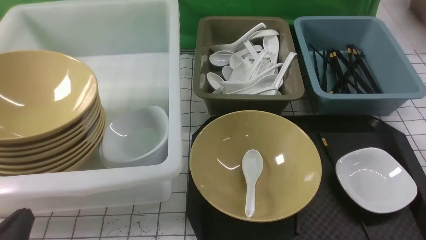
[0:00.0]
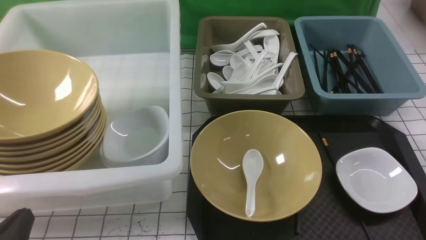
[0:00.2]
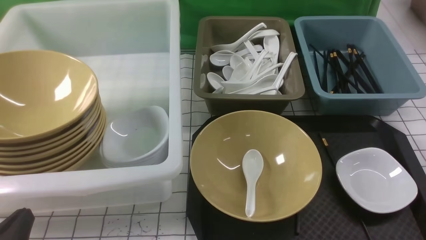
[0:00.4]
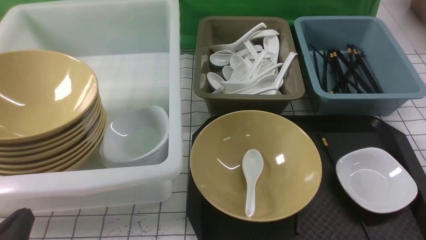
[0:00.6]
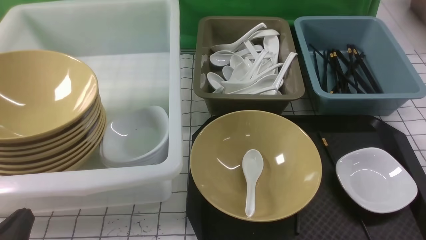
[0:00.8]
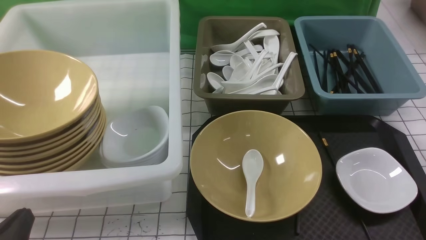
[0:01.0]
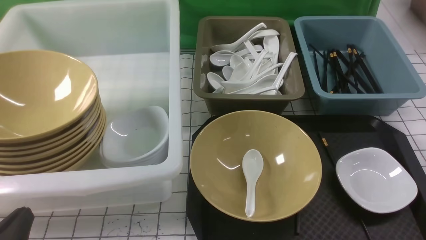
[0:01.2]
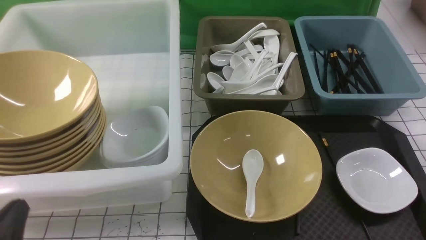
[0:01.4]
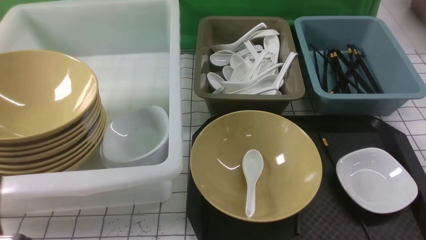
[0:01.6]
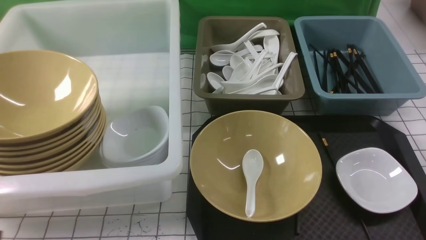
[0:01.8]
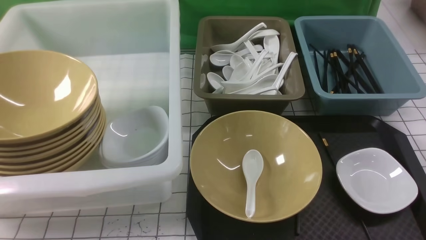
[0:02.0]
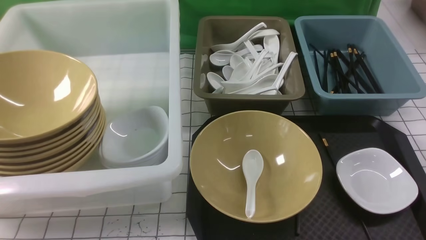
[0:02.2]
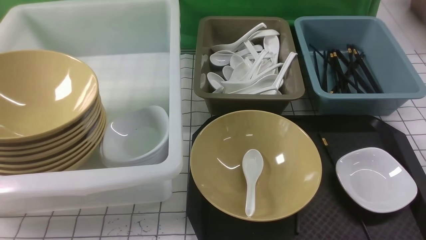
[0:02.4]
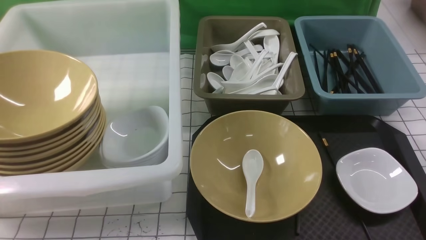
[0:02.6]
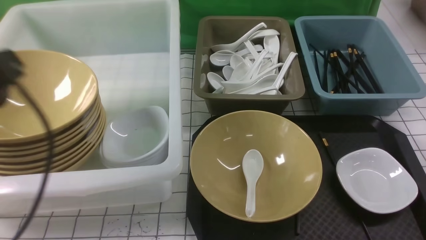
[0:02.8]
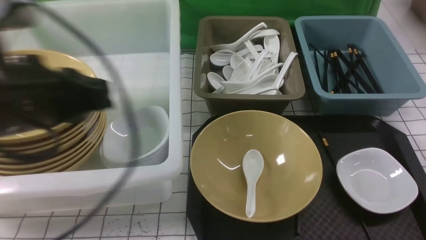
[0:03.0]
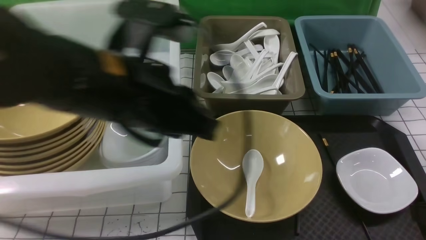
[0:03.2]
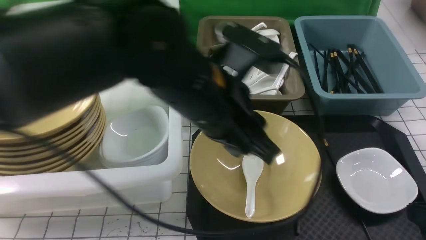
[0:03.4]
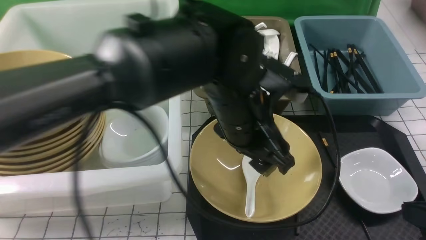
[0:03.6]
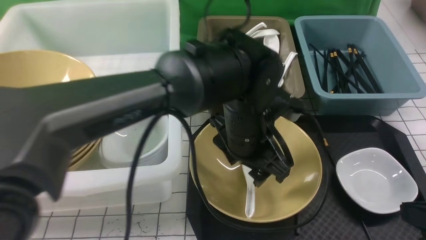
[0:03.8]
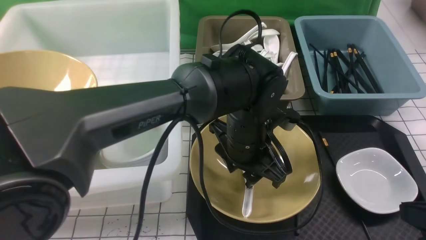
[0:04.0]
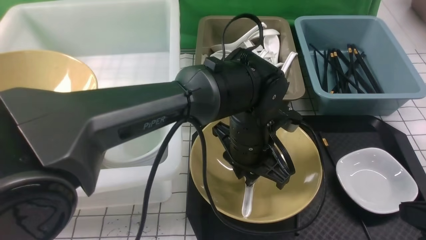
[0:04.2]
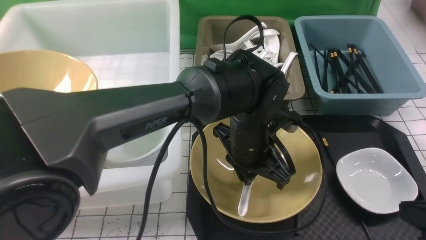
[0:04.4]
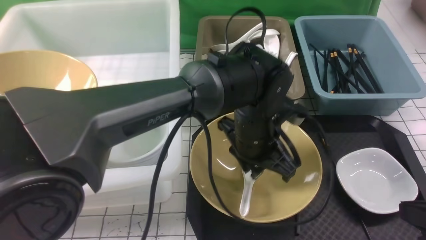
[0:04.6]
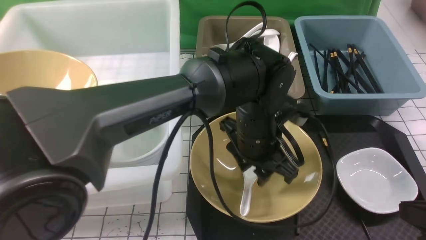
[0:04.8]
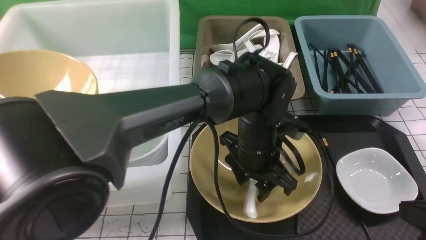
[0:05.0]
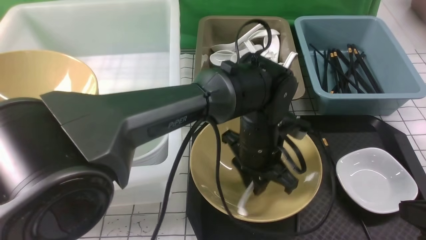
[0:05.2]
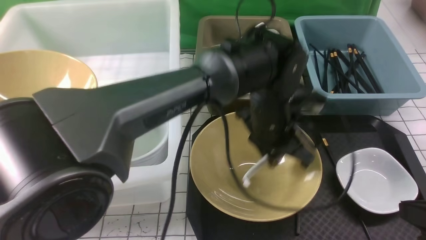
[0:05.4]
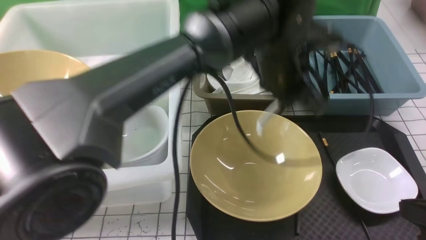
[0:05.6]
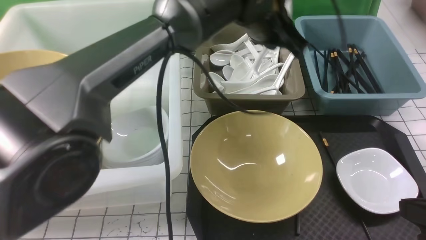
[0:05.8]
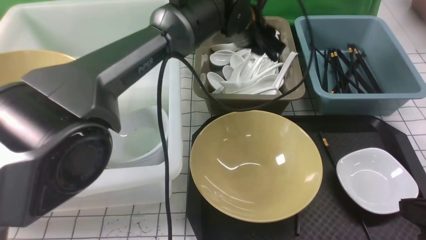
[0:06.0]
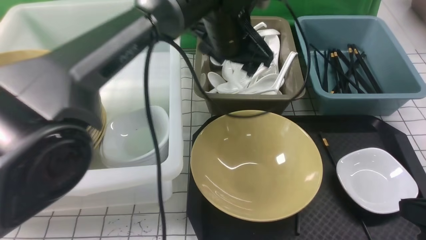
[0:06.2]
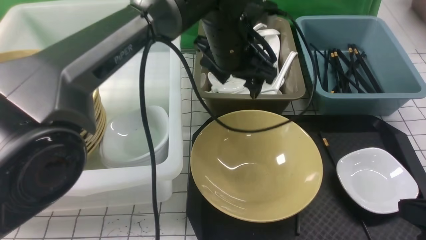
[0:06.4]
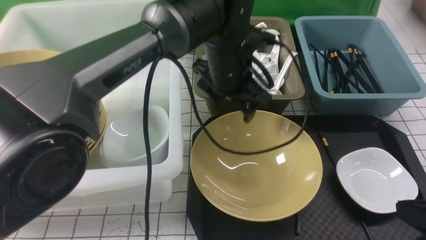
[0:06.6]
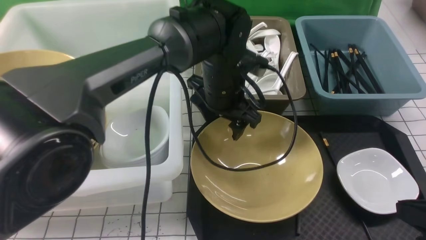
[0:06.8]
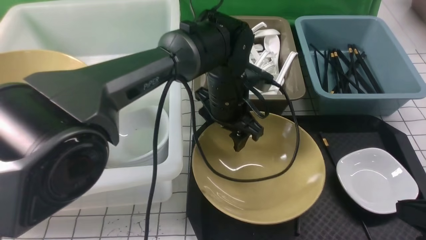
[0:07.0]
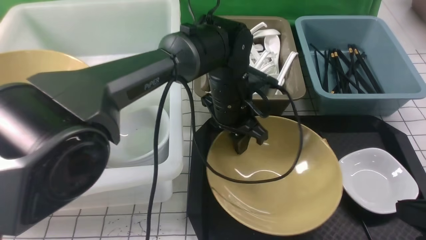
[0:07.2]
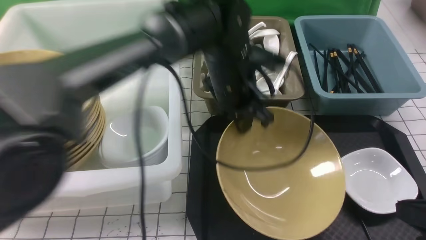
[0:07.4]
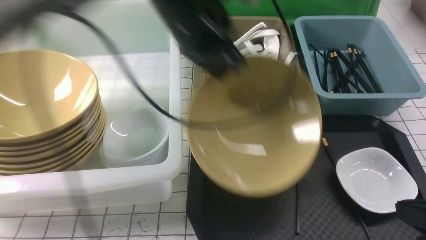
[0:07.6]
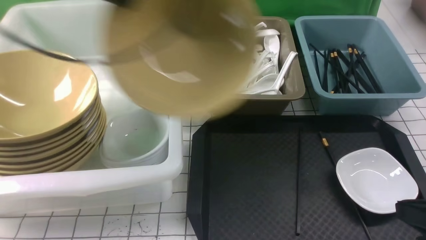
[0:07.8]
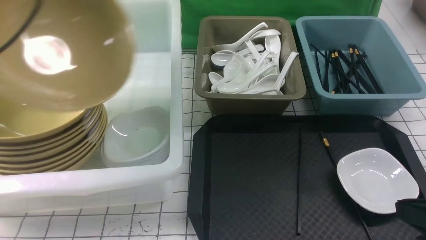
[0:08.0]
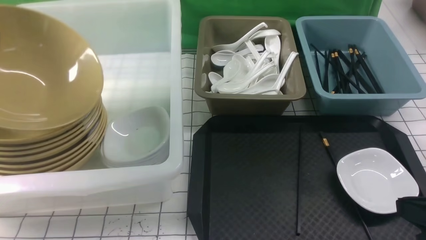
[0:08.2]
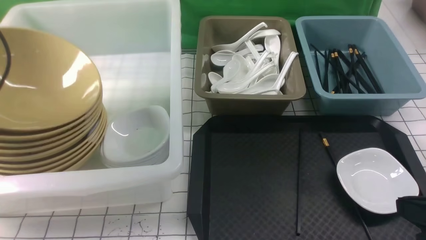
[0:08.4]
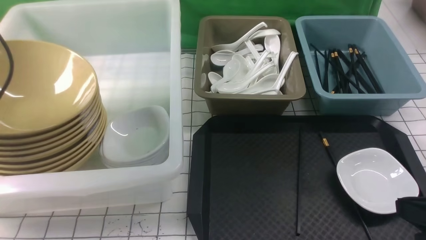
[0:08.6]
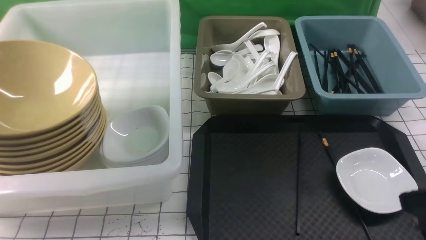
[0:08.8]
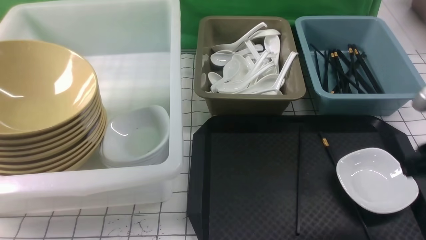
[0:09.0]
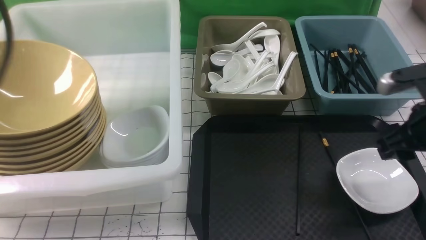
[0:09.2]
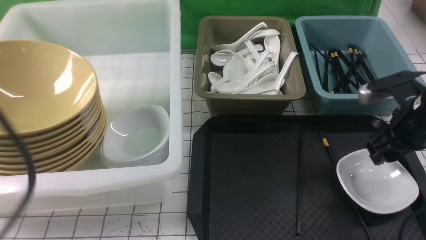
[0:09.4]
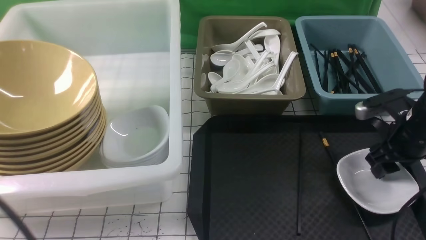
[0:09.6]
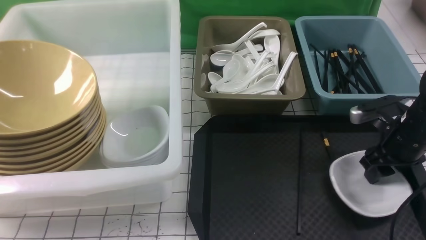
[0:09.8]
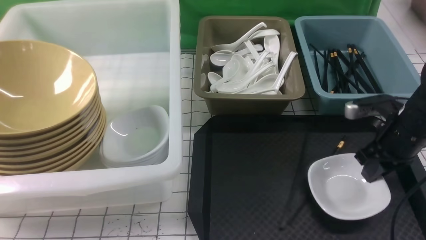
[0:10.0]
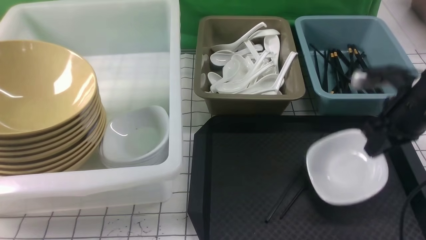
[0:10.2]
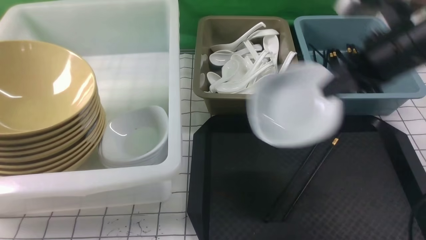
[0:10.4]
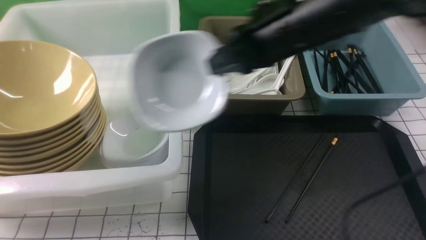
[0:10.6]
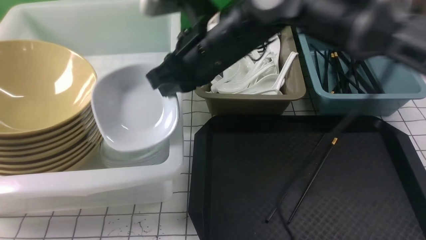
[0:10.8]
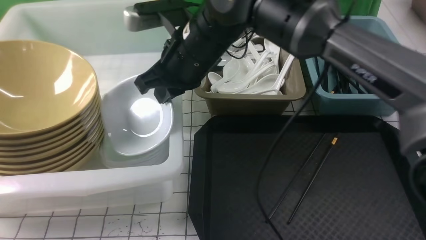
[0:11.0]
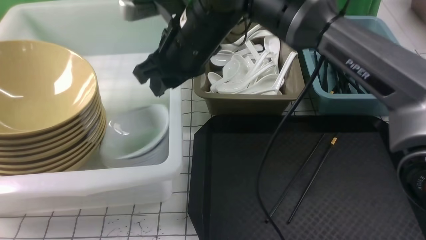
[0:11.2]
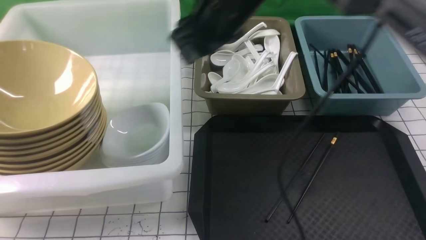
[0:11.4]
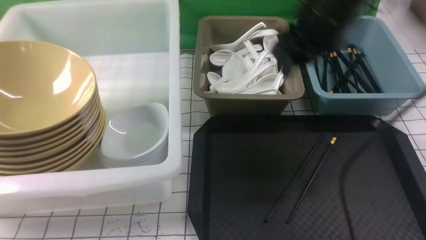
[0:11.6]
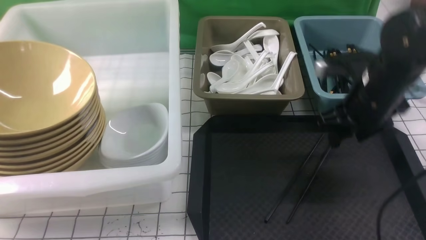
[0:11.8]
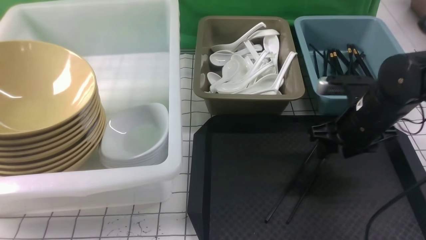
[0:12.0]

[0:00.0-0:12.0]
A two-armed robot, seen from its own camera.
Task of the whole recording: on white black table put chopsticks spoon bowls plates into blue grey white boxes.
Step, 0:00.0 to 0:05.8: use the left arm to grab the soup spoon in the middle.
Step, 0:06.0 to 0:06.6: use the left arm to put the soup spoon into the small storage box in the middle.
Step, 0:06.8 to 0:07.6: use the left arm to grab the yellow noodle bowl on the left.
Step, 0:07.8 to 0:08.8: use the left arm to put the noodle bowl into the large storage box on the left.
Step, 0:09.0 to 0:10.2: use the right arm to grab the plate.
Step, 0:10.4 to 0:11.4: use the right arm to put the plate into the large storage box on the left.
0:01.6 to 0:03.0: The left gripper goes some 20 cm upward, forward and to the right.
0:03.0 to 0:04.4: The left gripper is displaced to the right, downward and forward by roughly 30 cm, and opens, then closes again.
0:04.4 to 0:06.0: The left gripper is displaced forward and upward by roughly 15 cm, and opens up.
0:06.0 to 0:07.6: The left gripper shifts some 15 cm to the left, upward and backward, and closes up.
0:07.6 to 0:09.0: The left gripper heads to the left and backward, covering some 25 cm, and opens up. Meanwhile the right gripper moves forward, some 10 cm, and opens.
0:09.0 to 0:10.4: The left gripper is displaced downward and backward by roughly 20 cm, and closes; the right gripper shifts about 15 cm forward, to the left and upward, and closes up.
0:10.4 to 0:12.0: The right gripper is displaced downward by about 15 cm, reaches about 20 cm to the left, then returns, and opens its fingers.

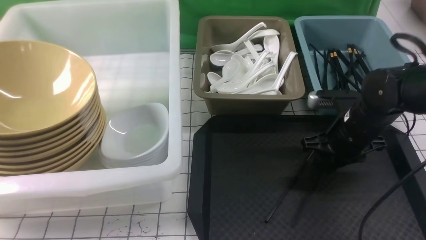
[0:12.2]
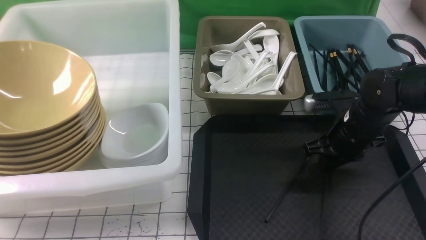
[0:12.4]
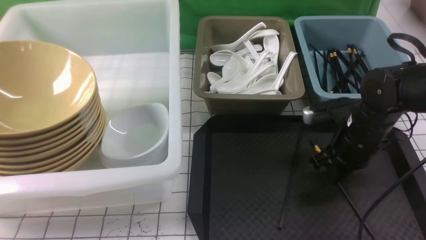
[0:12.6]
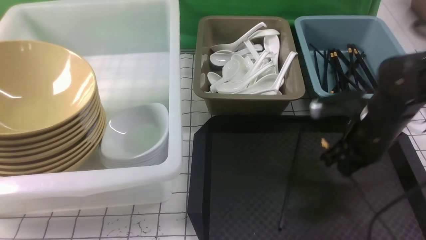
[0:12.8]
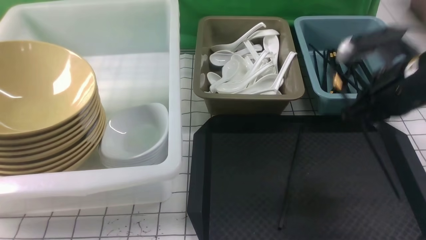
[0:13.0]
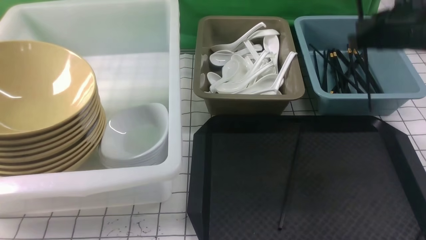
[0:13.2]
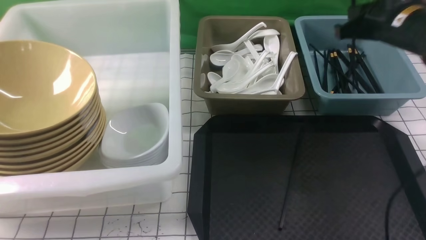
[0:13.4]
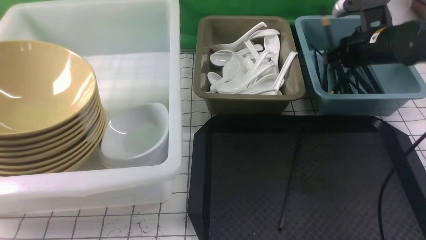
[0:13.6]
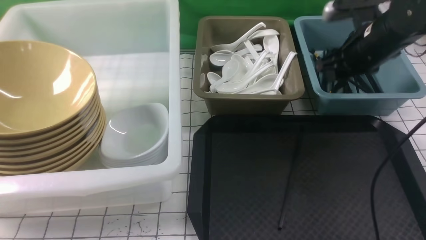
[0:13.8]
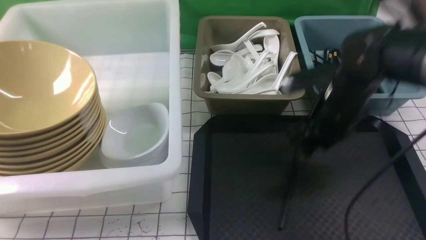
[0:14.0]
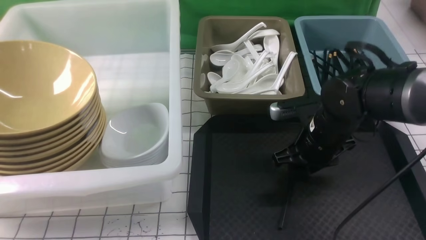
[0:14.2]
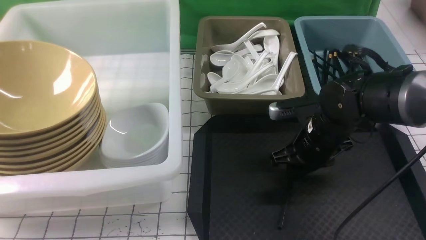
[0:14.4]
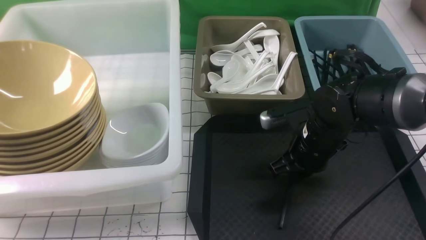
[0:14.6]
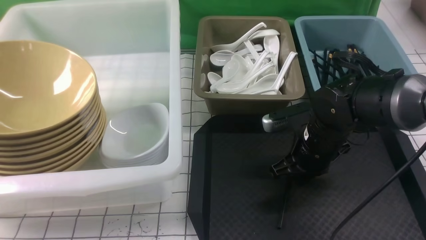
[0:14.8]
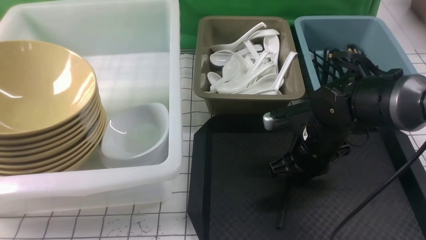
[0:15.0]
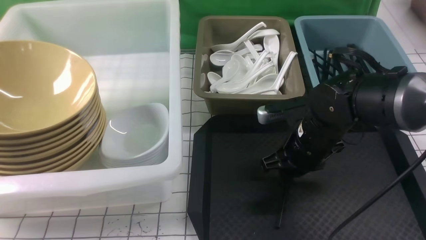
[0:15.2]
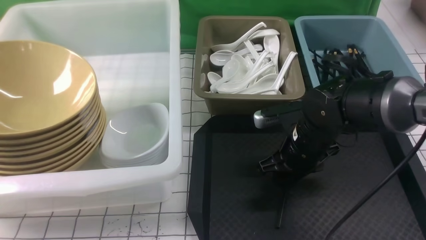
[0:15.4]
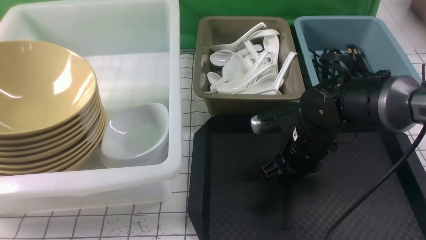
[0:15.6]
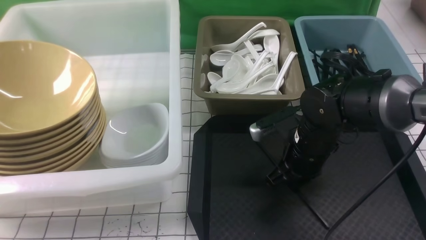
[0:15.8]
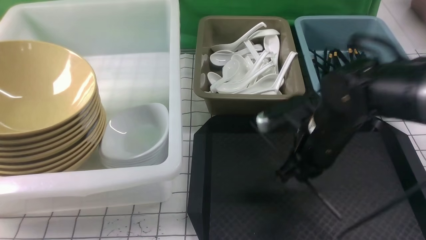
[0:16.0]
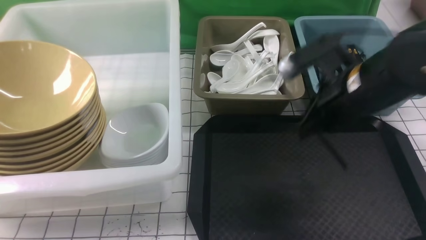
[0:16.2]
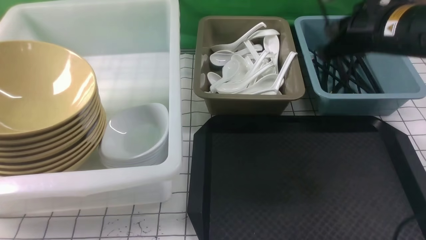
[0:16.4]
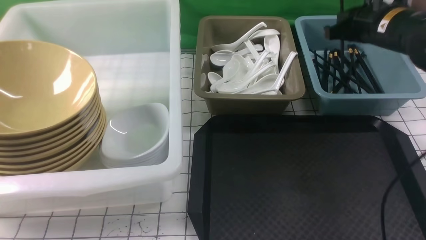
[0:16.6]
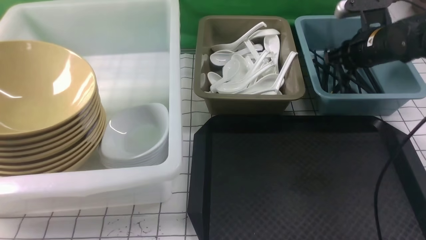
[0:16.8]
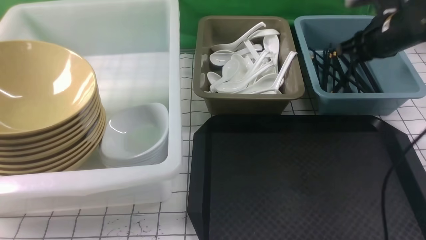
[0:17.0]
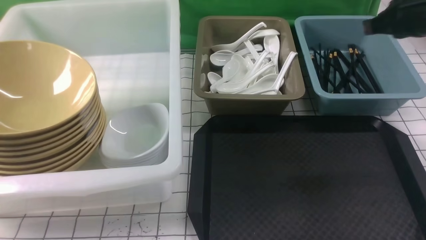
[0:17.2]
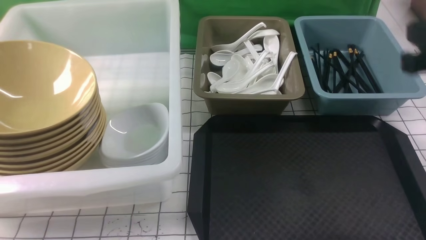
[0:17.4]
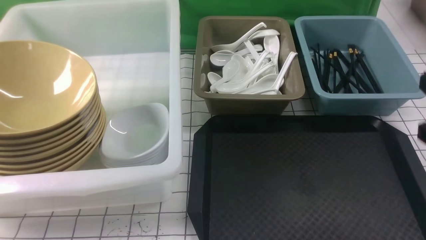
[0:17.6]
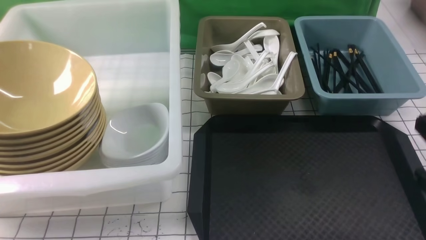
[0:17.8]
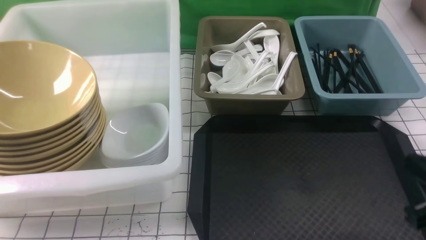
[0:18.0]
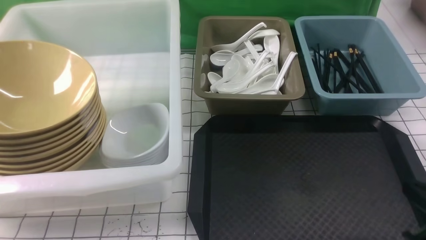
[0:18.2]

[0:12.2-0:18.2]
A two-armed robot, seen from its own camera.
Task of the whole recording: on white black table put chopsticks spoon bowls plates into blue grey white boxes.
Step, 0:12.2 to 0:12.8: use the right arm to grab a chopstick.
Step, 0:13.0 to 0:13.6: use the right arm to put a chopstick into the small storage box on the right.
Step, 0:13.8 to 0:16.0: use the right arm to grab a chopstick.
Step, 0:16.4 to 0:17.0: use the right arm to put a chopstick into the small storage box on the right.
0:12.2 to 0:13.8: The right gripper shifts roughly 10 cm upward and forward, and closes, then reopens.
0:13.8 to 0:15.2: The right gripper goes about 15 cm backward, to the left and downward, and closes, then reopens.
0:15.2 to 0:16.6: The right gripper moves to the right, upward and forward, some 20 cm, and closes up.
0:16.6 to 0:18.2: The right gripper shifts some 30 cm backward.
